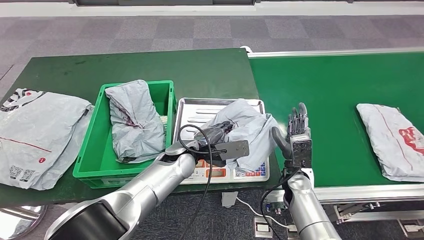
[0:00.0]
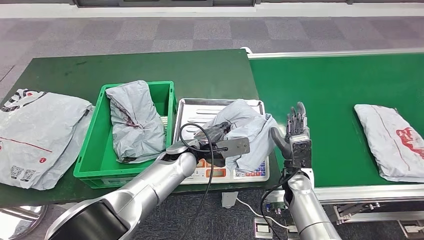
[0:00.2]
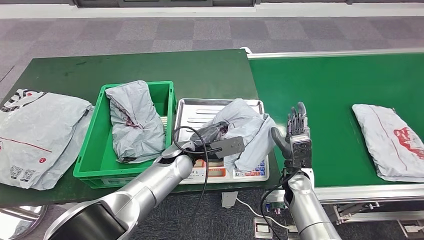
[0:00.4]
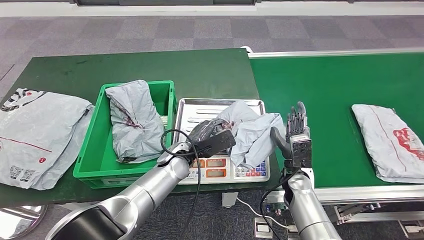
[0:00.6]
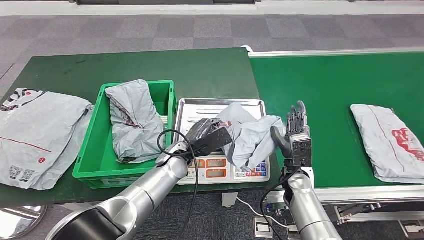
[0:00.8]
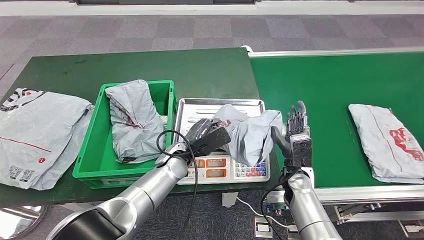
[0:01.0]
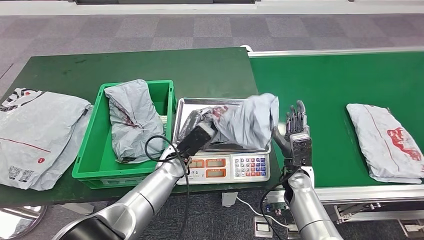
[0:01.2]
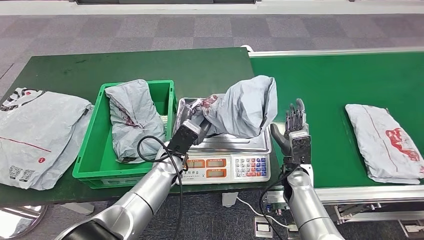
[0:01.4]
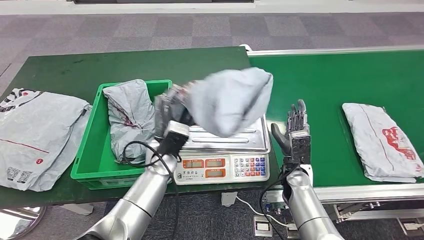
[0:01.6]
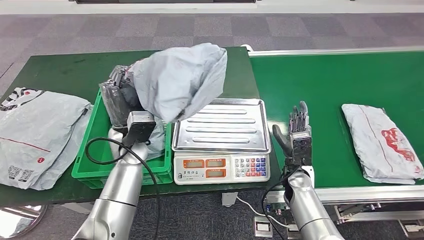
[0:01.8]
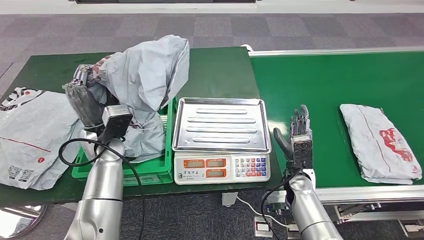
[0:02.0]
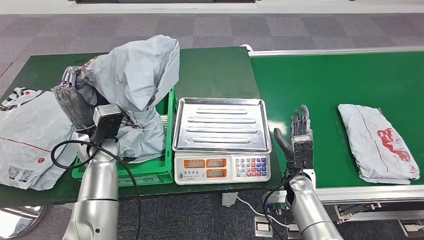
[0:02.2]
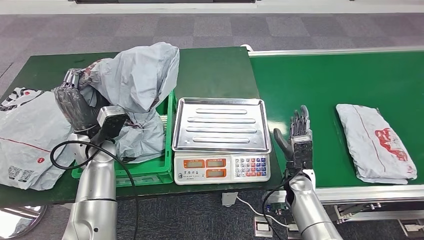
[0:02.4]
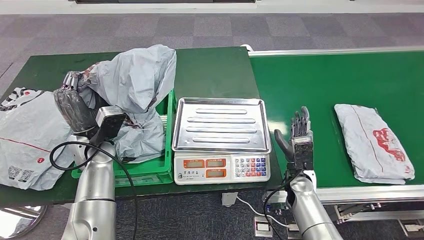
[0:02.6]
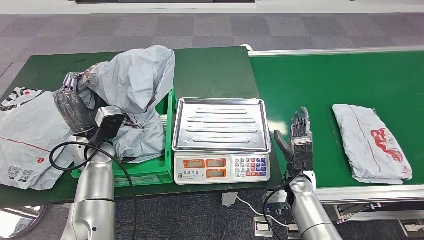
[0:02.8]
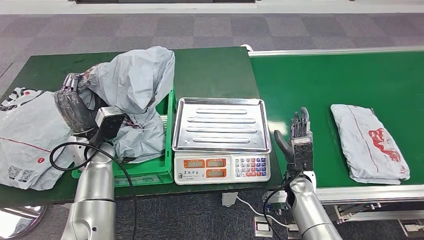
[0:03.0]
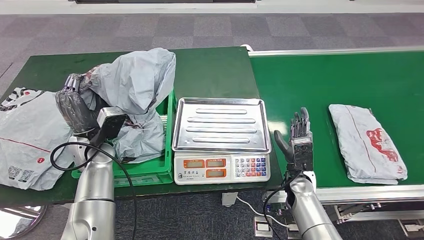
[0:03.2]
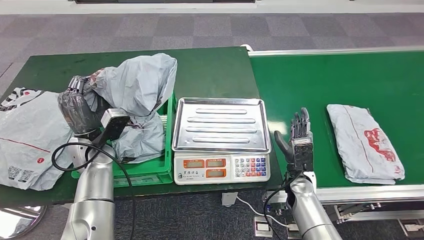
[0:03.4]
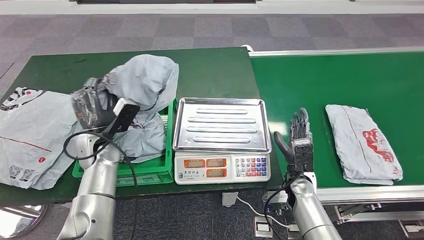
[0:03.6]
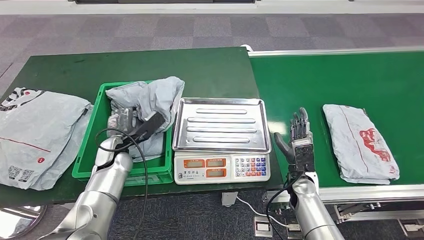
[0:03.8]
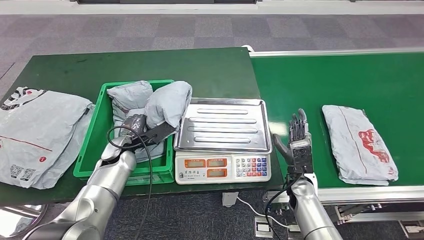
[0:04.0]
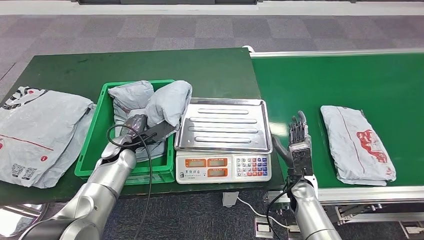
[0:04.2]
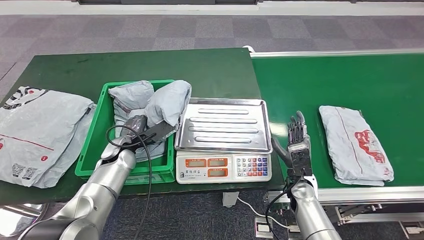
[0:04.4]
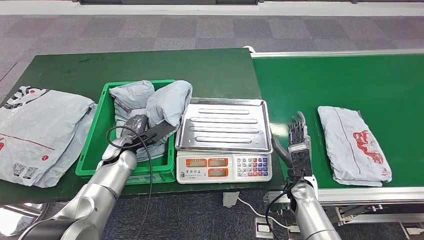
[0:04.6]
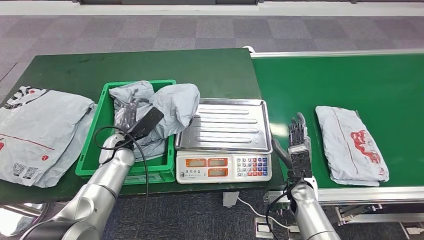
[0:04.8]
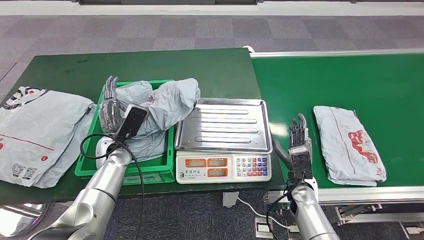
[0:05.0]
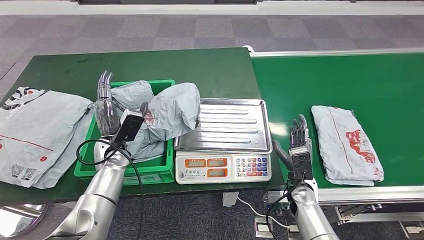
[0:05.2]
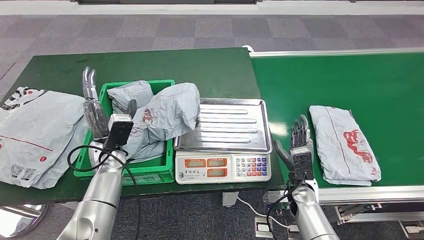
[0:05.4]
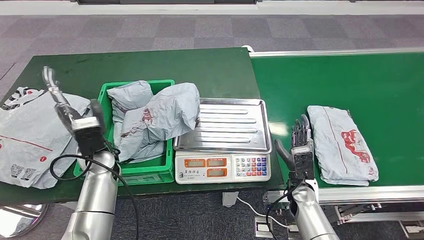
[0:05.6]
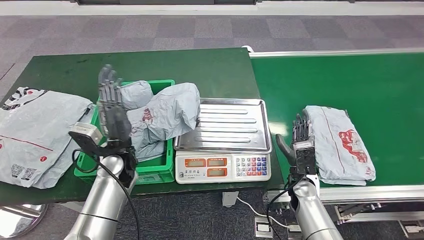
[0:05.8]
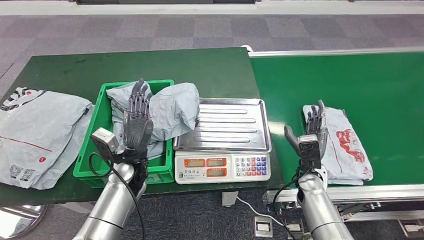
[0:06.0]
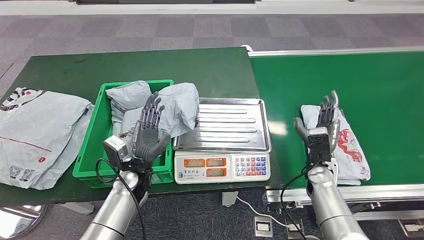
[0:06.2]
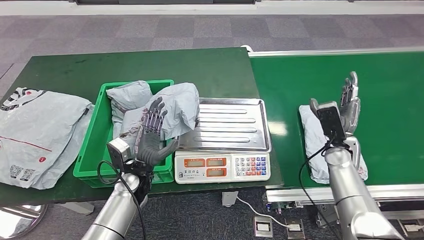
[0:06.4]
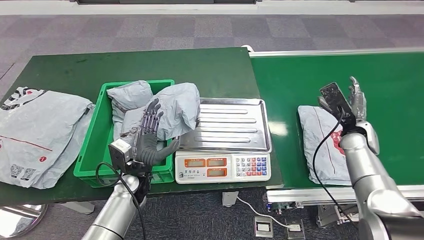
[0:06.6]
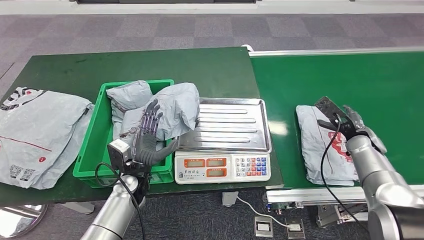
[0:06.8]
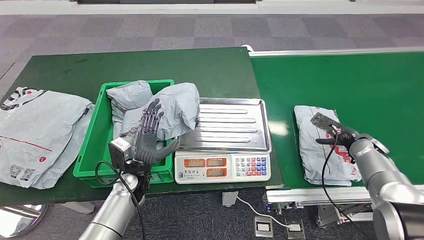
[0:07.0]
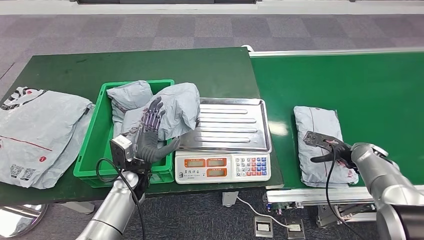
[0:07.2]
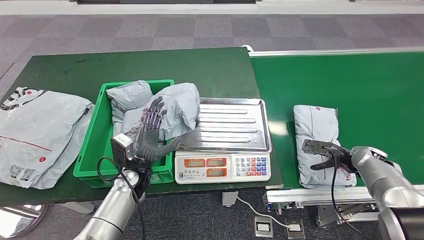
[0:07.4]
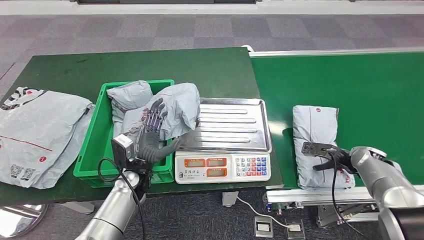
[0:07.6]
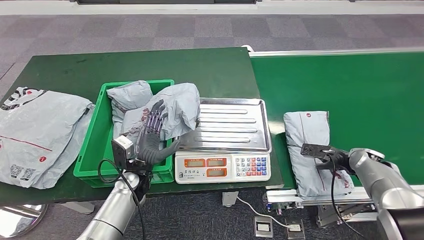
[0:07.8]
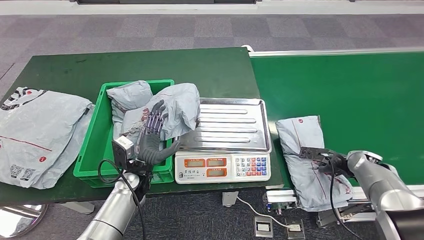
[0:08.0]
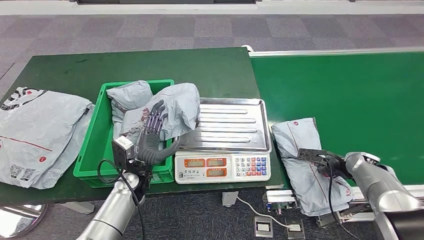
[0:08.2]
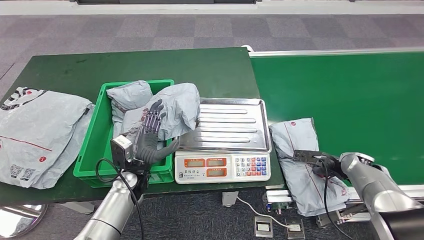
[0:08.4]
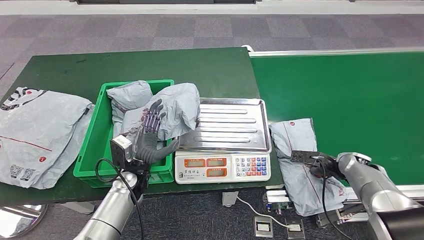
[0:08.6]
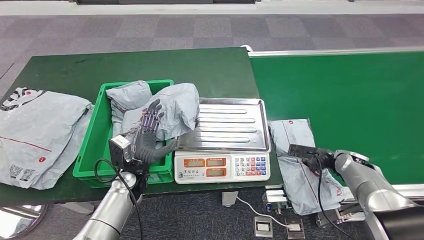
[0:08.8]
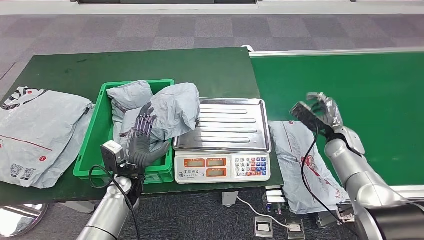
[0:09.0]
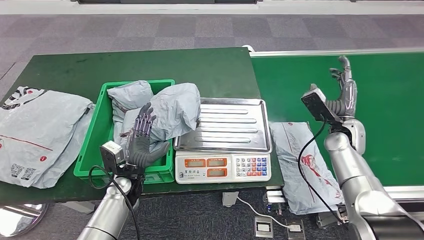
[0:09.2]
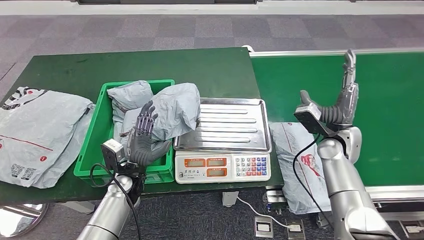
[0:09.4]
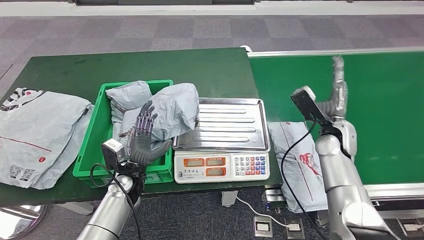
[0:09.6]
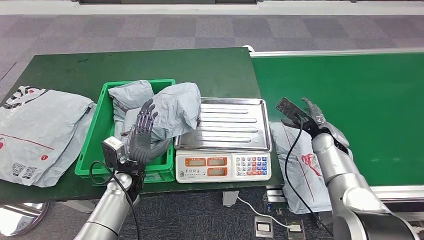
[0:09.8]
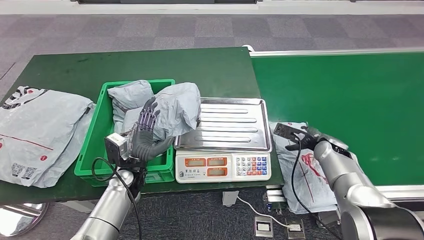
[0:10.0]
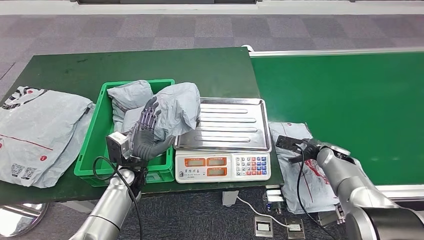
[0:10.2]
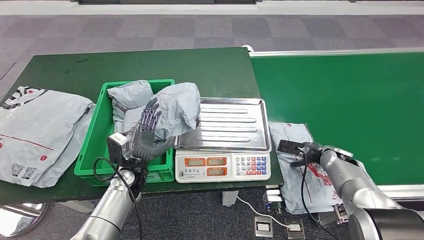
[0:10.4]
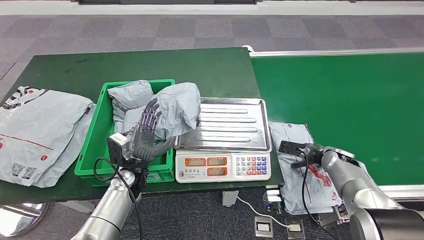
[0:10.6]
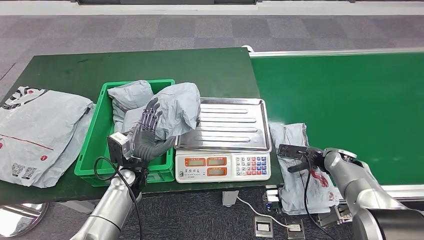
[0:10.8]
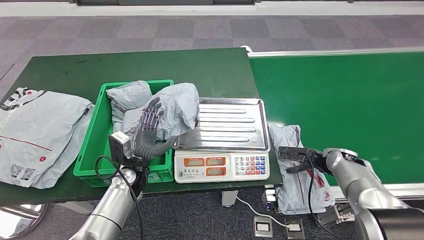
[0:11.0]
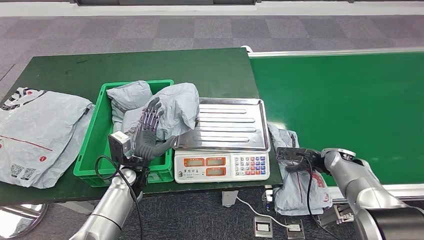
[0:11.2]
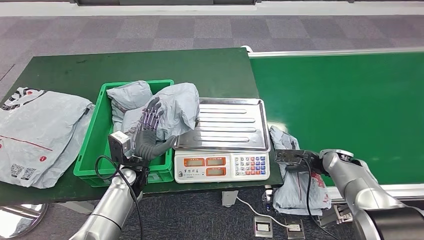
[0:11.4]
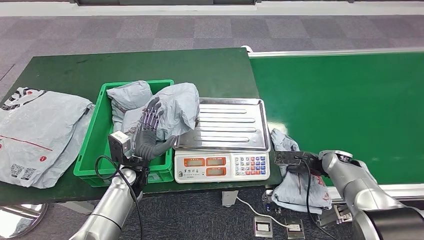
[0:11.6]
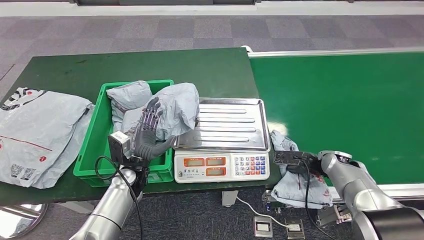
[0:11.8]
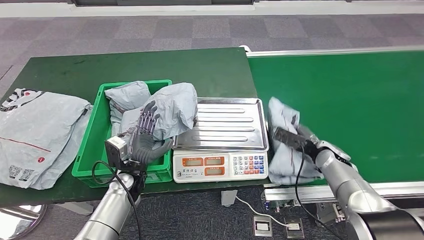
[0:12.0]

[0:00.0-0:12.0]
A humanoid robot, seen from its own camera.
Step, 0:00.0 to 0:02.2: Pick up the parcel from the inbound machine.
Step, 0:02.4 to 0:05.8: Place the parcel into the delivery box.
0:06.0 to 0:07.6: The right hand goes roughly 15 cm to the right.
0:07.6 to 0:09.0: The right hand goes roughly 5 cm to the left.

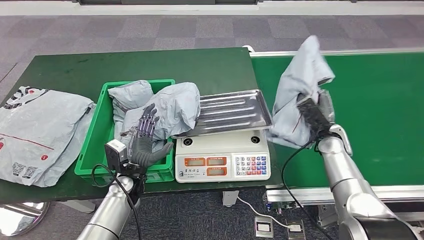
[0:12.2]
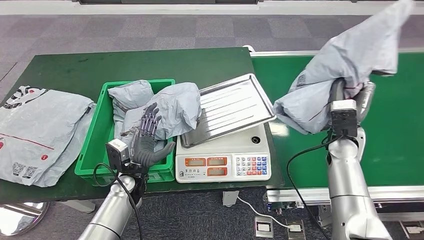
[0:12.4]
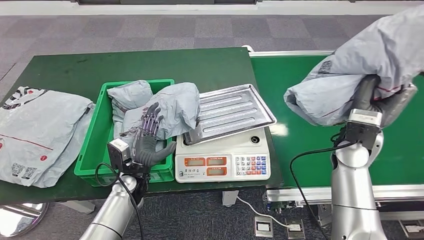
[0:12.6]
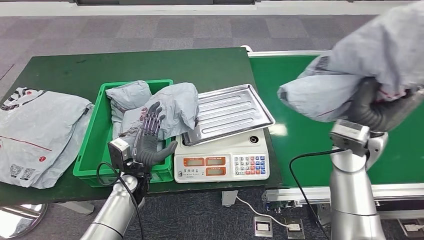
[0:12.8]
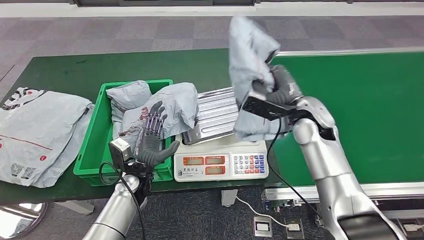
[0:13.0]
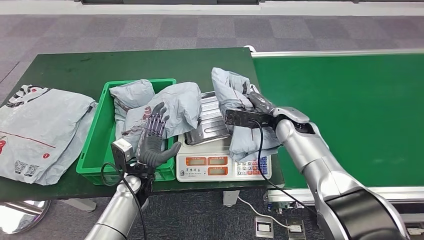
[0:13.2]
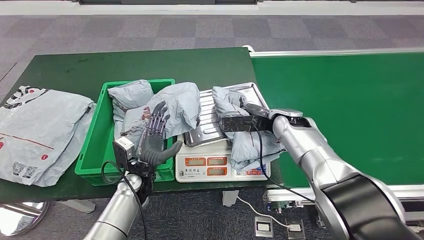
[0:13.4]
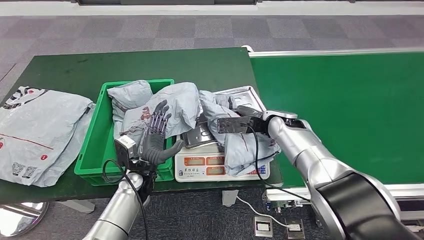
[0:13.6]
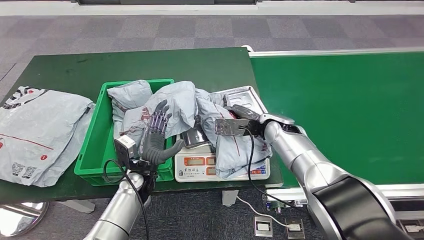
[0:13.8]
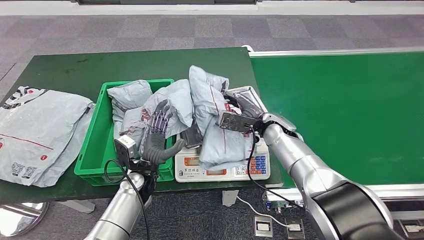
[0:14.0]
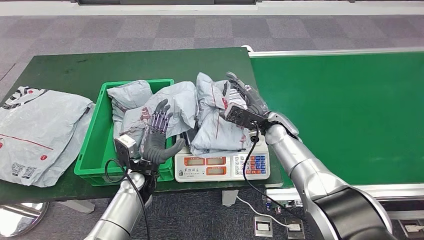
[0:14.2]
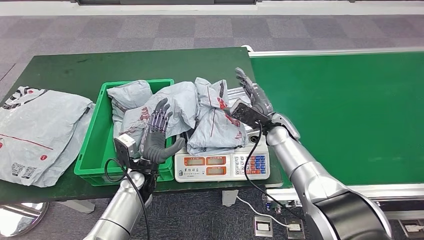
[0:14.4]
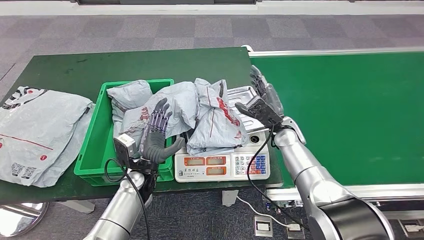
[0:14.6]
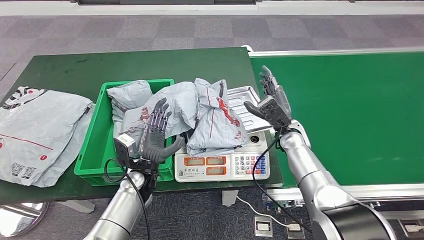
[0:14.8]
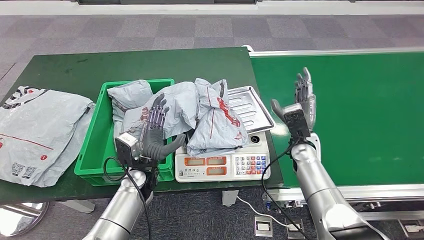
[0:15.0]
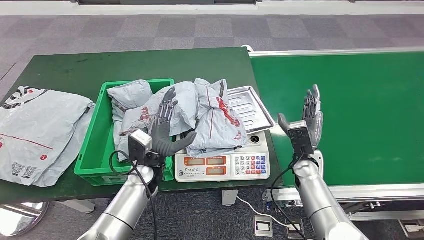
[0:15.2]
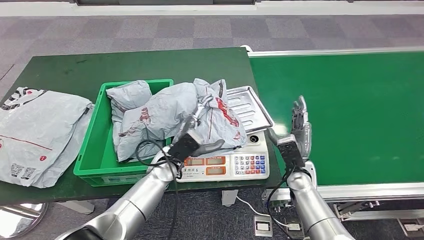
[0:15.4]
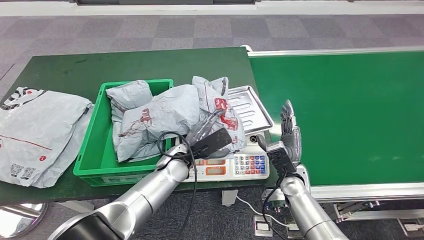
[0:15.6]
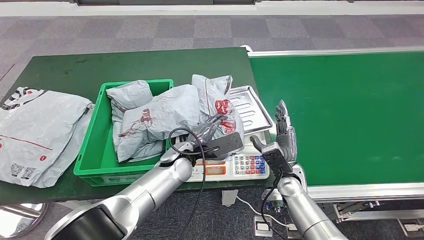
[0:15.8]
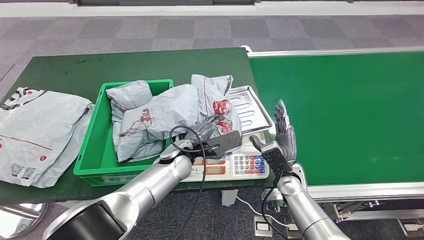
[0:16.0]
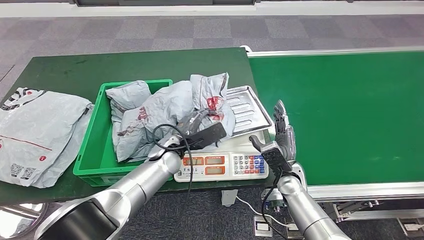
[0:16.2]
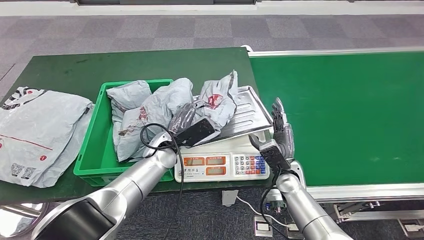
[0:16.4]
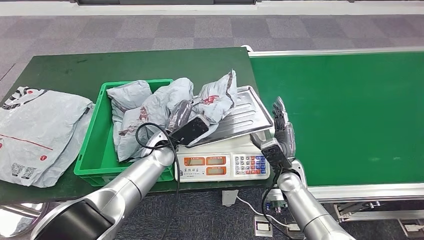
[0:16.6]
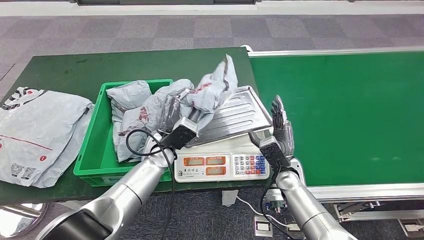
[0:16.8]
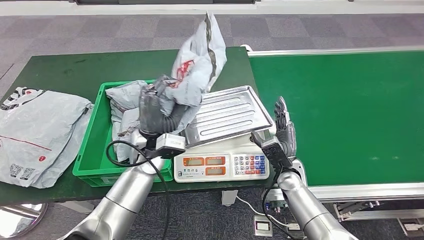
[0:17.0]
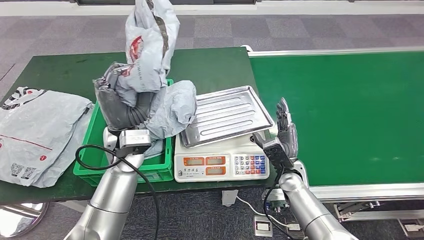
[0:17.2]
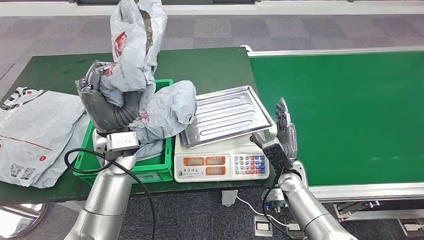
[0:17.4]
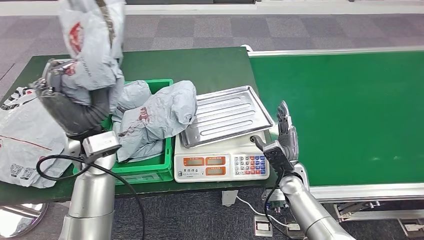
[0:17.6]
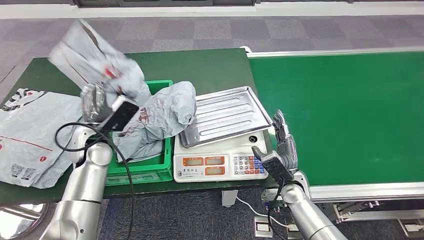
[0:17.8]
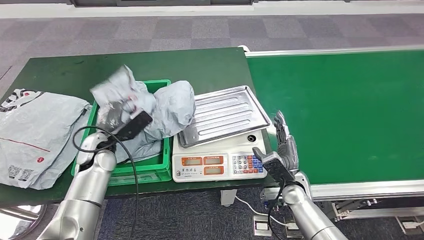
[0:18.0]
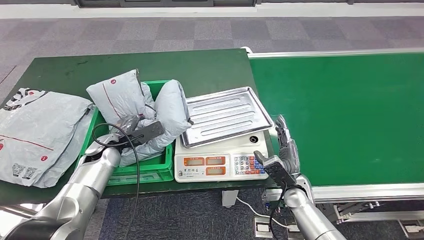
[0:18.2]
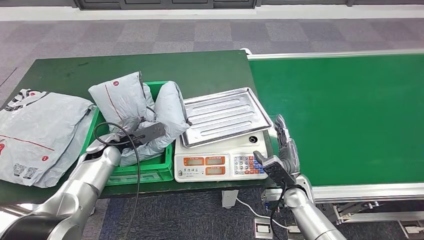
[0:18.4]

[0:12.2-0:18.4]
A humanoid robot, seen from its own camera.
Step, 0:13.0 to 0:15.4: Place the parcel onto the inbound machine.
Step, 0:15.6 to 0:18.0: Pick up the parcel from the inbound machine.
